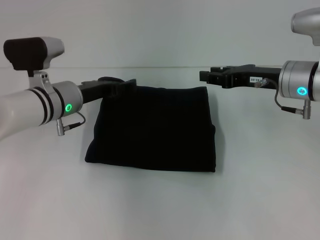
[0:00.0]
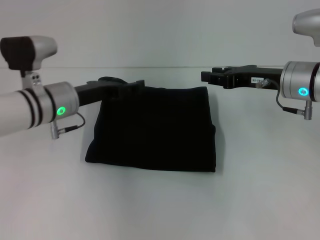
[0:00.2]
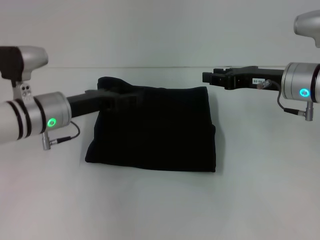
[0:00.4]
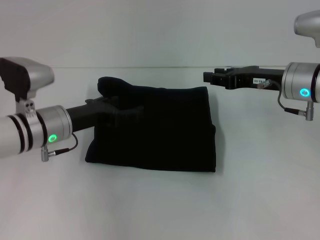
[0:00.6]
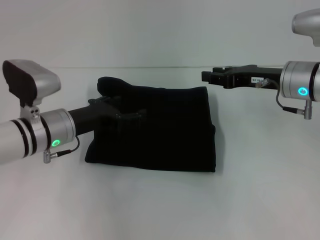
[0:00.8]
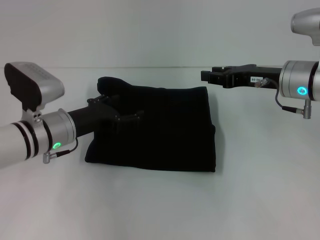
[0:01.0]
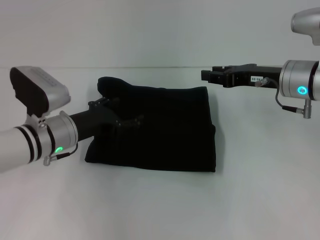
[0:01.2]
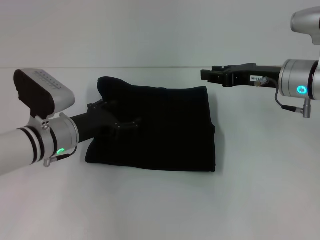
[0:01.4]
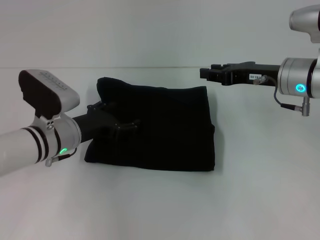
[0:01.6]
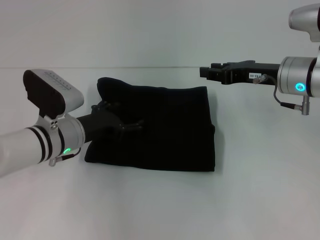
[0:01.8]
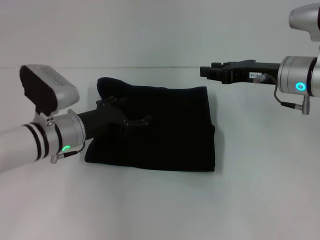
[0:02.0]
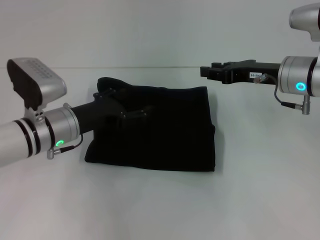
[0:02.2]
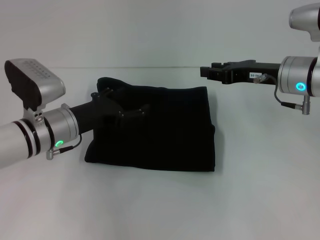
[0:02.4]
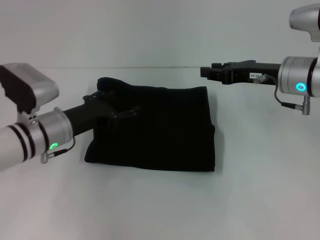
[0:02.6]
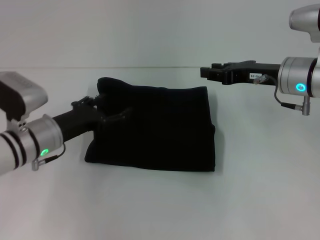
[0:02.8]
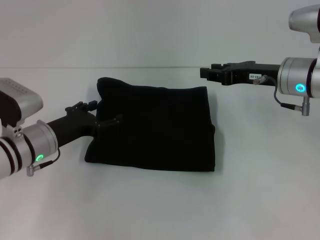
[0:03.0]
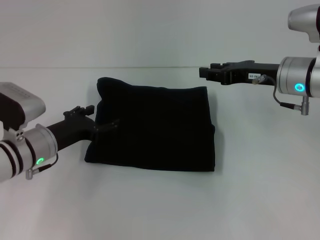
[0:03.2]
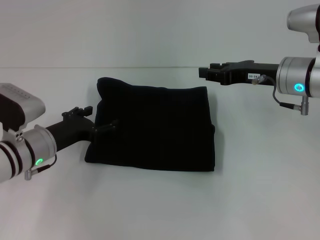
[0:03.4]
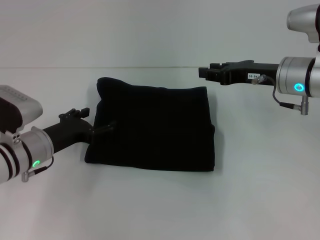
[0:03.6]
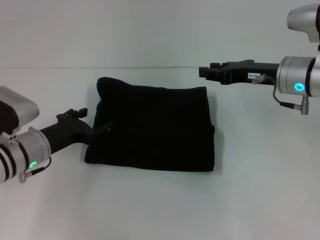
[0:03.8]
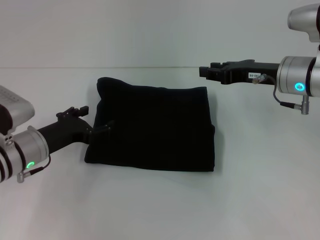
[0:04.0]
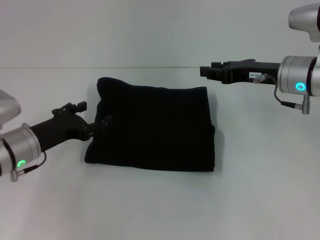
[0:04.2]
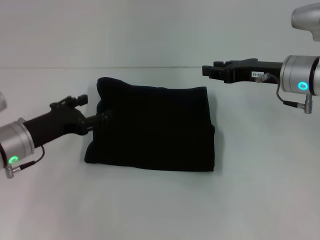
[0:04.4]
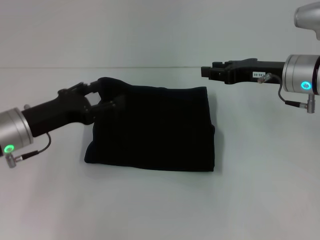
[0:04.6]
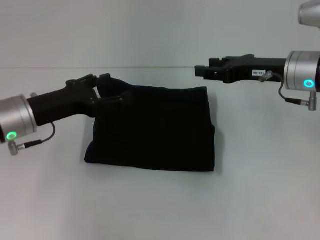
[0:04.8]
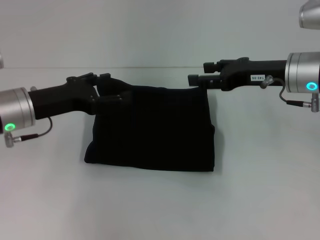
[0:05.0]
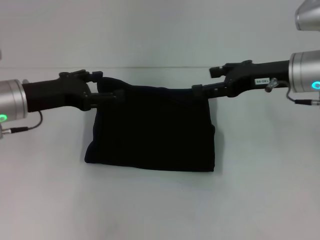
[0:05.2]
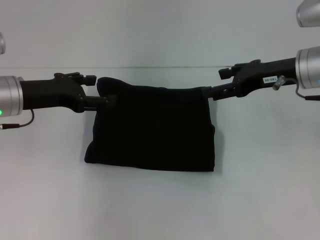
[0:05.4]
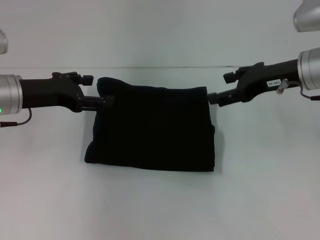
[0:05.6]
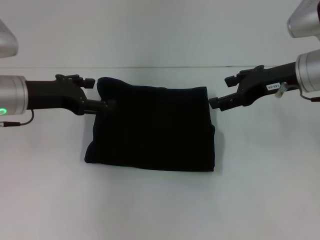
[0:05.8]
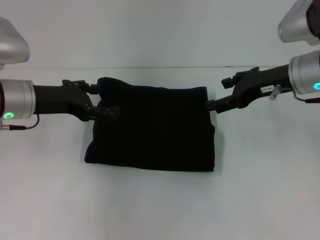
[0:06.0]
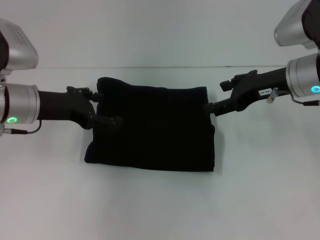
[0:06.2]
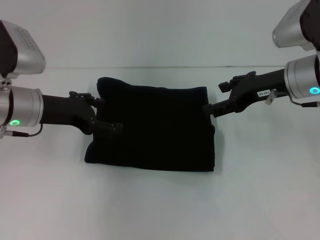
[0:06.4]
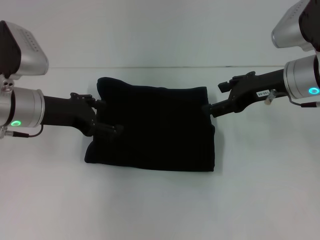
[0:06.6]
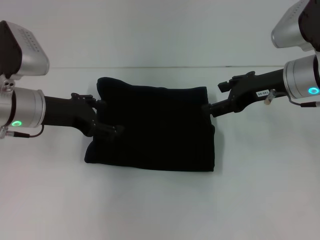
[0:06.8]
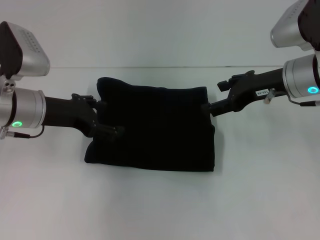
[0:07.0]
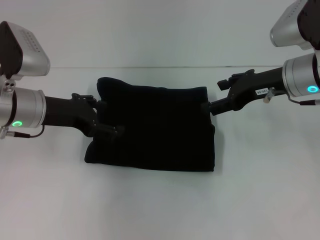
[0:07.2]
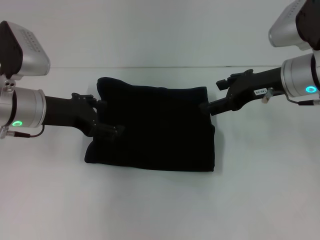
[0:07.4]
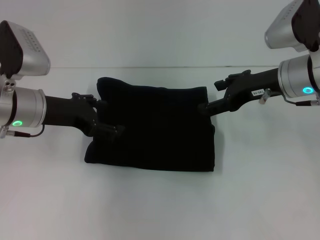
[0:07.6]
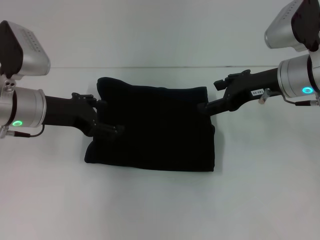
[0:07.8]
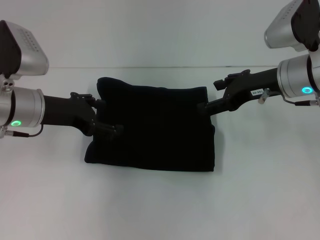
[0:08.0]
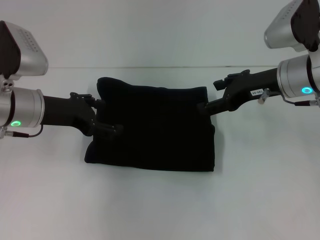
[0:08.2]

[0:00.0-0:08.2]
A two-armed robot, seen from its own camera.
0:00.0 to 0:01.6: The left gripper changes place by roughly 5 cm.
0:01.6 to 0:03.2: The grippers move only a little.
0:03.2 to 0:05.0: The left gripper goes roughly 10 cm upward.
0:06.6 to 0:08.2: Both grippers stay put.

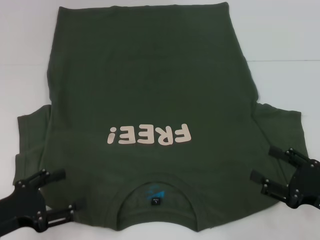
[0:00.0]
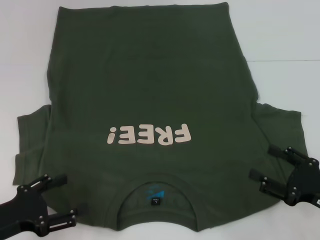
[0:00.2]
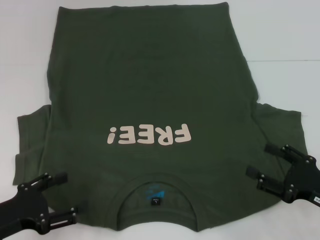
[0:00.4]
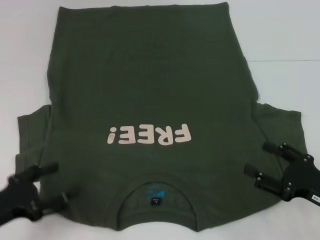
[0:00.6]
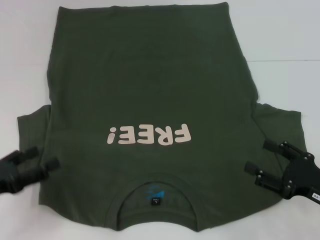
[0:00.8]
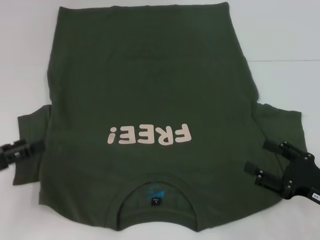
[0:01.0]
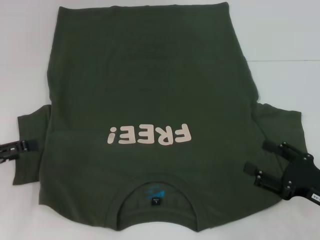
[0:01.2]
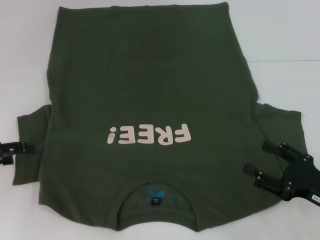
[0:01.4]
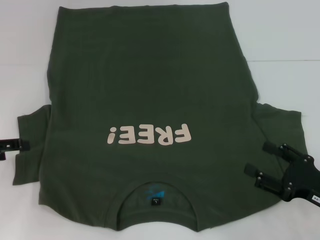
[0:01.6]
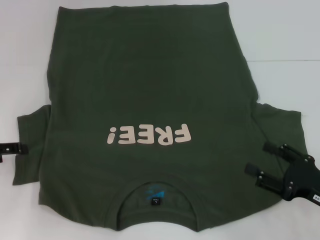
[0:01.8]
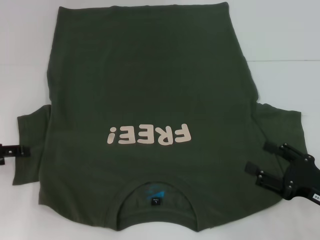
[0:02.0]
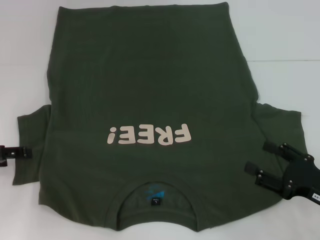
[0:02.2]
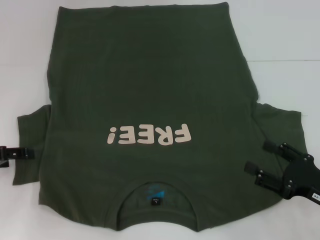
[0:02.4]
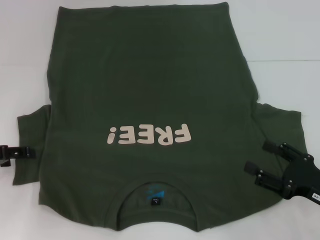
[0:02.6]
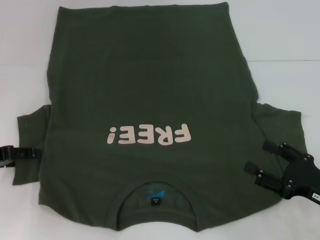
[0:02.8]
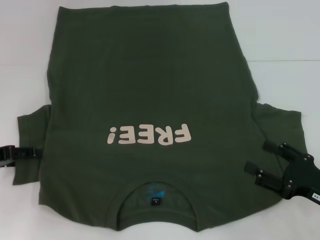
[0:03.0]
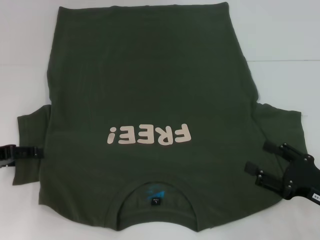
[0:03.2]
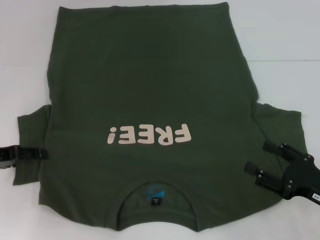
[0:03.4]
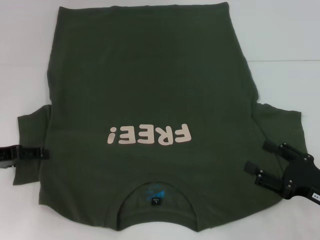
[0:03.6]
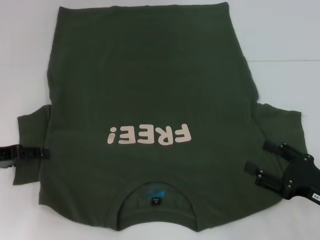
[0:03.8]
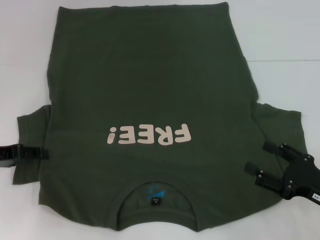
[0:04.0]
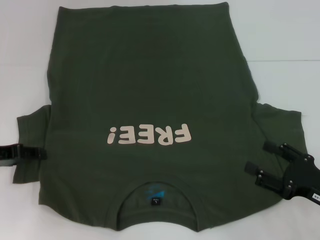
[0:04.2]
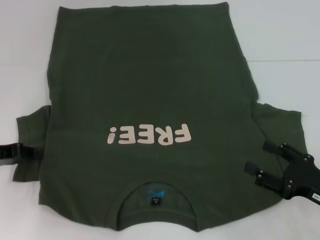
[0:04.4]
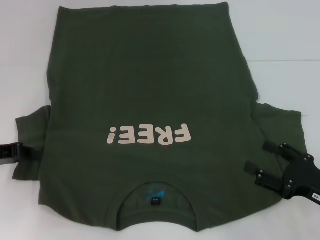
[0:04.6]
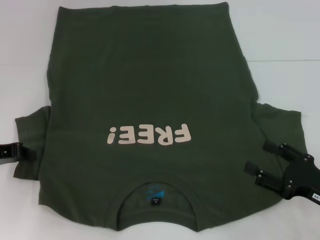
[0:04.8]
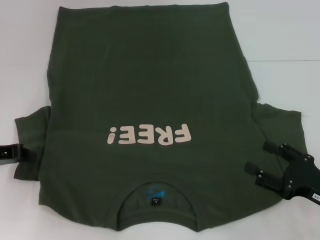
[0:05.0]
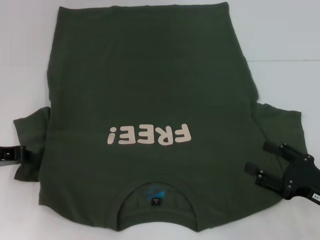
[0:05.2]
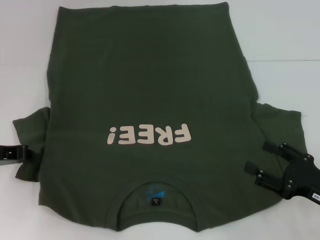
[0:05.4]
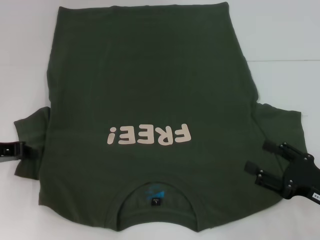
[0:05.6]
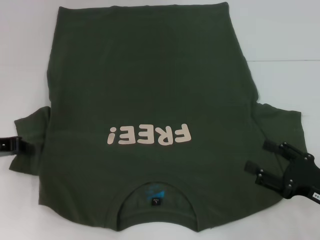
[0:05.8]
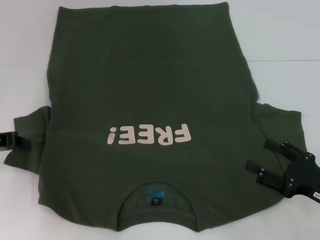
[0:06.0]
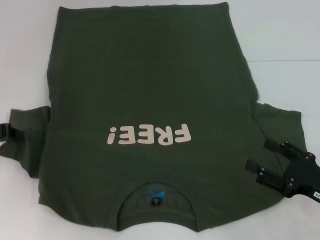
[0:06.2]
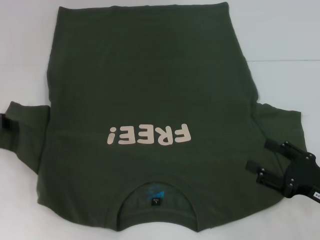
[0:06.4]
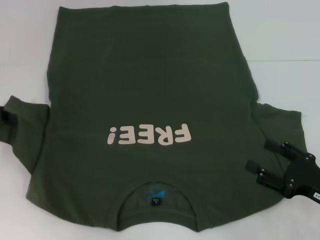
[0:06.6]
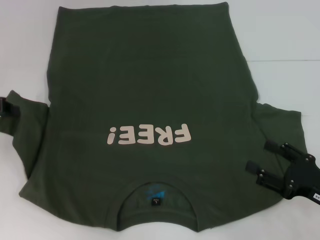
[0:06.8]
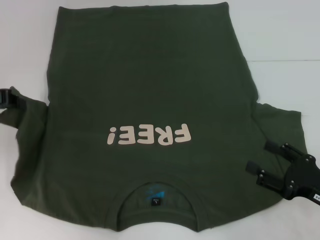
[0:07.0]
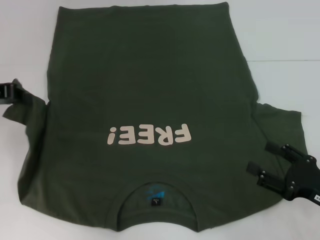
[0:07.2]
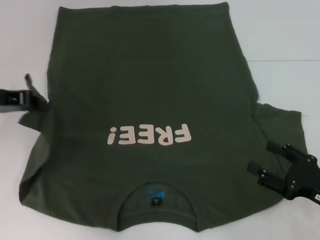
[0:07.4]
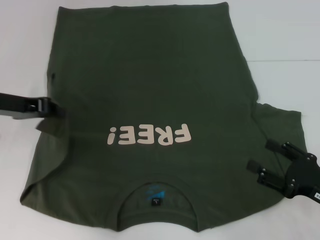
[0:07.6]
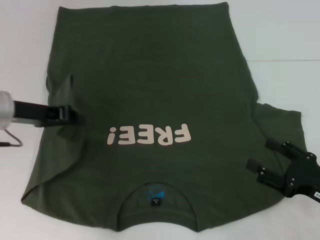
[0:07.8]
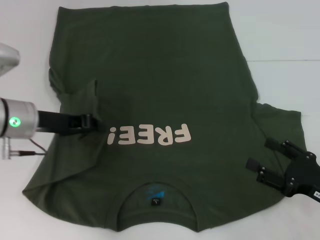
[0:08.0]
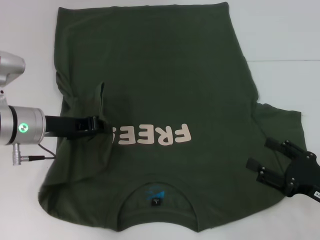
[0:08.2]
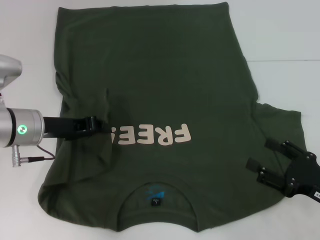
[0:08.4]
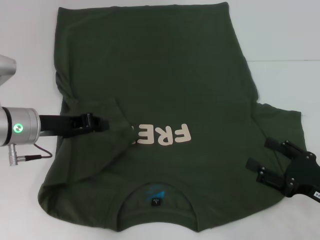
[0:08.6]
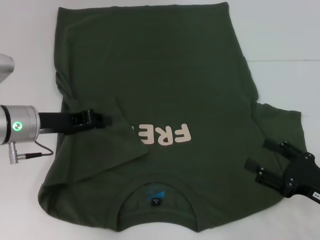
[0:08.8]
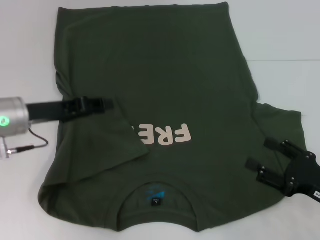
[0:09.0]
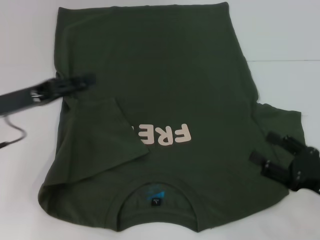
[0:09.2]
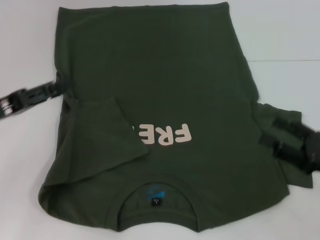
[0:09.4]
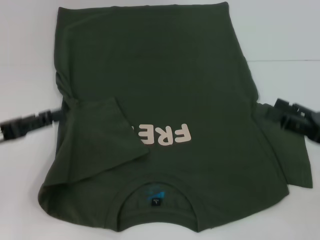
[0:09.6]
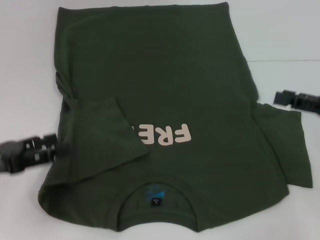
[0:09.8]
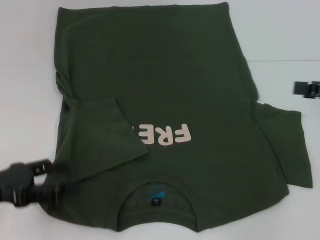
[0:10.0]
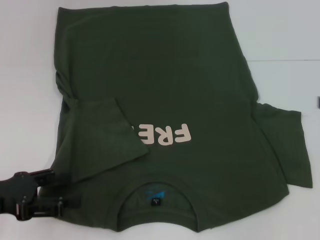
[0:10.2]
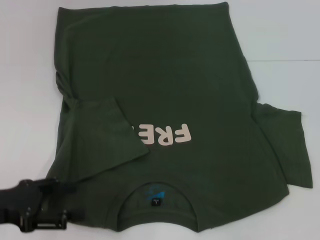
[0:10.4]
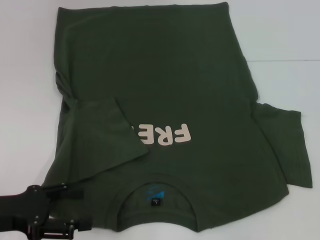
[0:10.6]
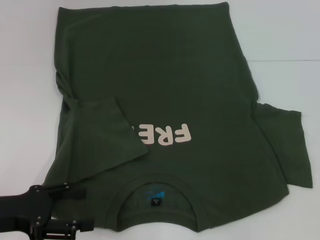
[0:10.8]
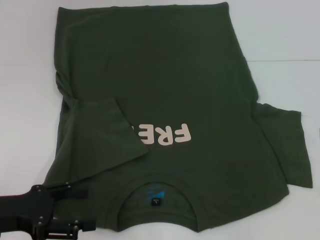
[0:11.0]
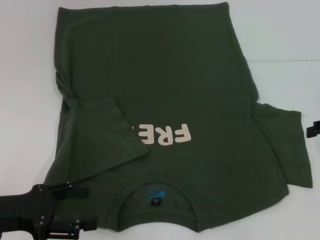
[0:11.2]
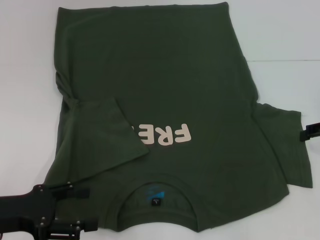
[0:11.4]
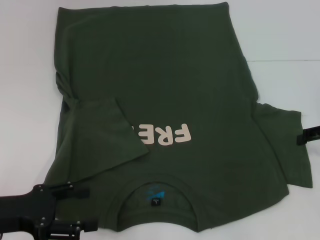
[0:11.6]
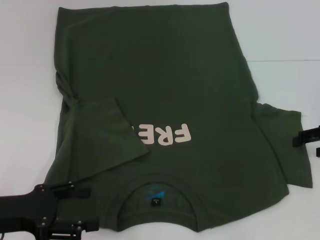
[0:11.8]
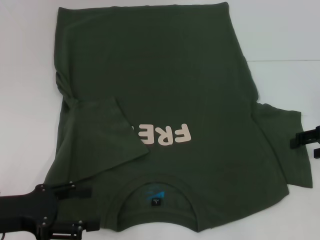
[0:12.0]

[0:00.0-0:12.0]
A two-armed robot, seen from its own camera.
Step, 0:00.0 to 0:09.0: Fold the bottom left sleeve with your left hand.
0:00.0 to 0:01.6: The left gripper shifts some 15 cm forward, to the left and upward.
0:01.6 to 0:03.0: The grippers make only small movements.
0:04.4 to 0:06.0: The left gripper closes.
0:06.0 to 0:07.6: The left gripper heads to the right, covering roughly 5 cm.
0:07.6 to 0:09.0: The left gripper shifts by about 5 cm.
0:09.0 to 0:10.4: The left gripper shifts roughly 15 cm backward and to the left, and opens its fingers. Meanwhile the right gripper is displaced upward, to the right and forward by roughly 25 cm.
0:10.4 to 0:12.0: The right gripper shifts about 10 cm downward.

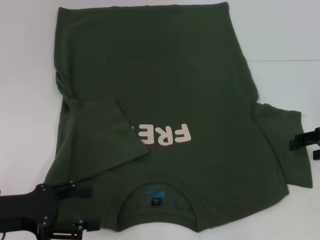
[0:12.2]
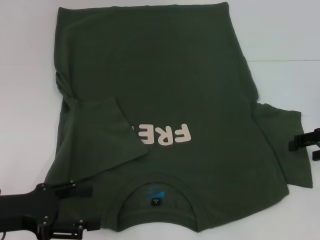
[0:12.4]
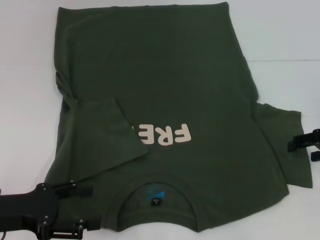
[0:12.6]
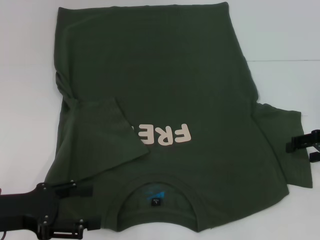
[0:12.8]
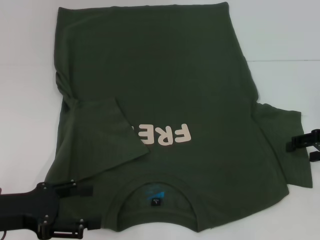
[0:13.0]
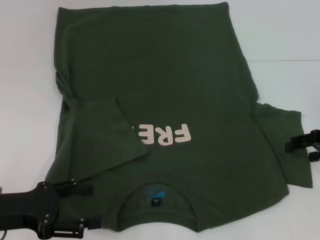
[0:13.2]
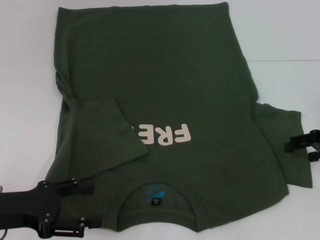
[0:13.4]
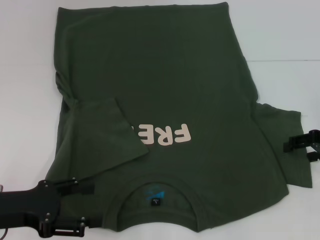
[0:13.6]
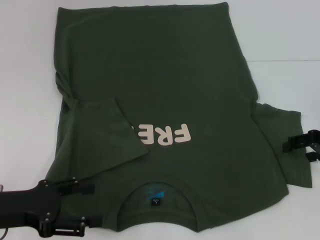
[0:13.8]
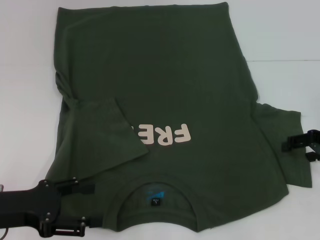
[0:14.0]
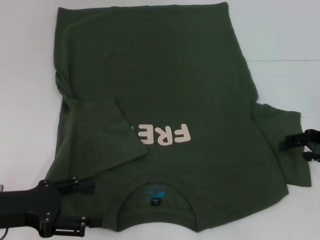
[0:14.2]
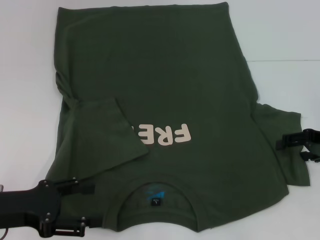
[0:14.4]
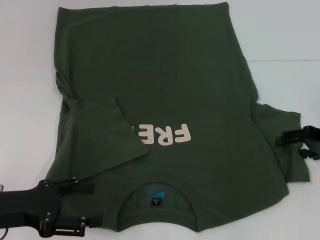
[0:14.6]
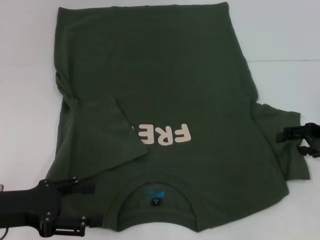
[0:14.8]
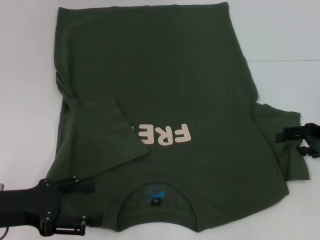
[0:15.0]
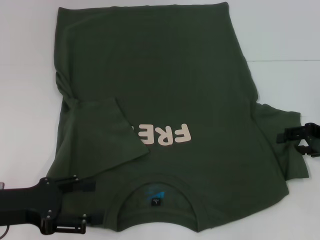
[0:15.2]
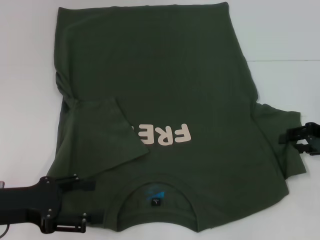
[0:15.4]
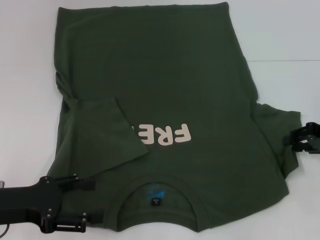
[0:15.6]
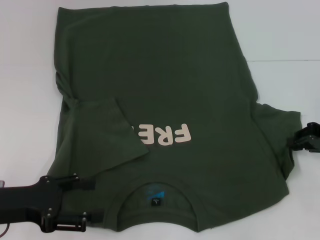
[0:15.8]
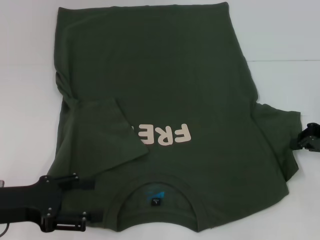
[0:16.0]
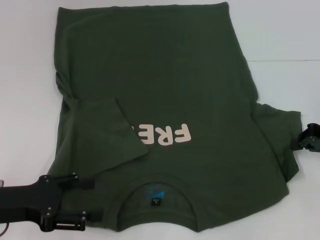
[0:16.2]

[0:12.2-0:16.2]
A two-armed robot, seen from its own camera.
0:12.2 to 0:13.6: Both grippers stay about where they are.
0:13.6 to 0:14.8: The grippers make only small movements.
0:14.8 to 0:16.2: The right gripper closes up.
